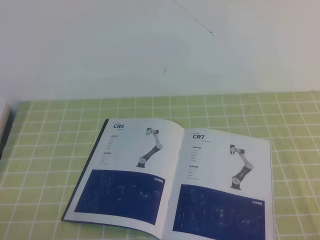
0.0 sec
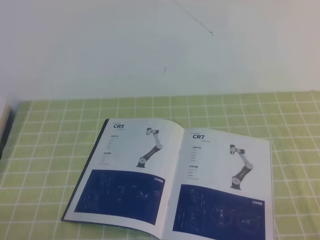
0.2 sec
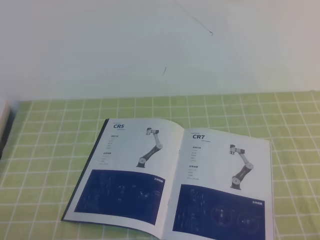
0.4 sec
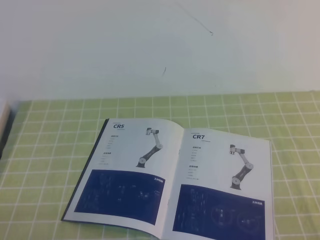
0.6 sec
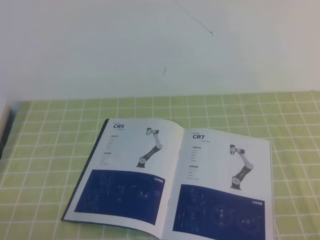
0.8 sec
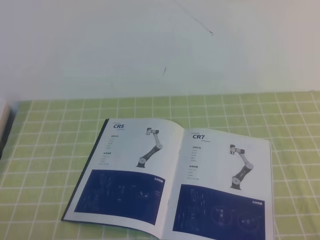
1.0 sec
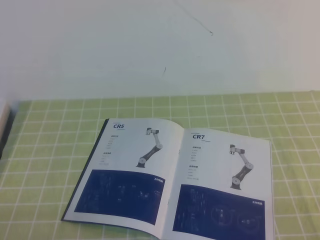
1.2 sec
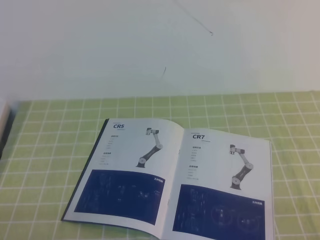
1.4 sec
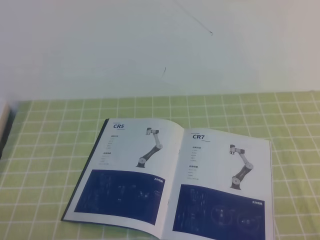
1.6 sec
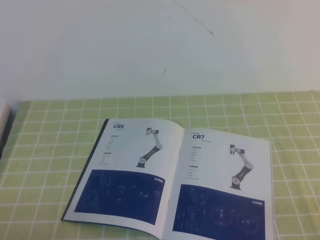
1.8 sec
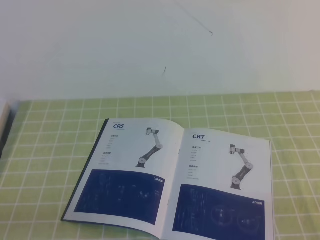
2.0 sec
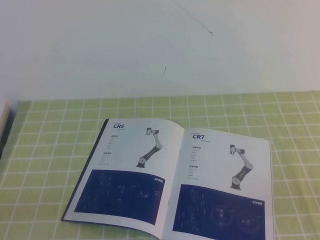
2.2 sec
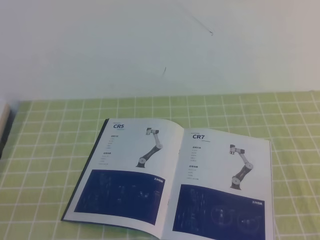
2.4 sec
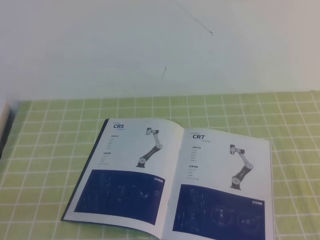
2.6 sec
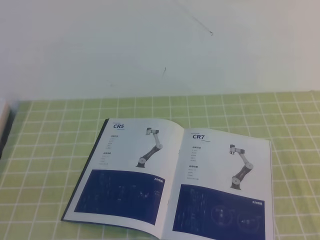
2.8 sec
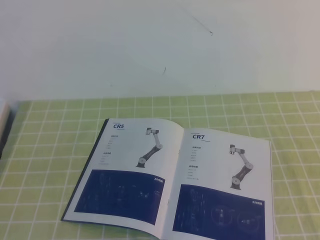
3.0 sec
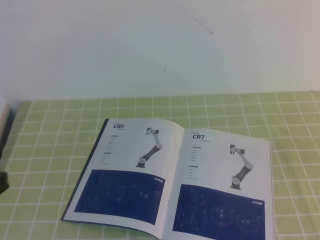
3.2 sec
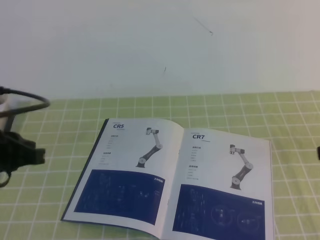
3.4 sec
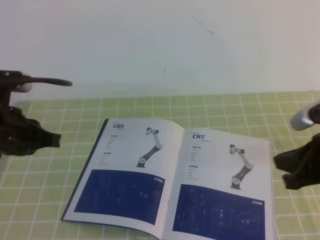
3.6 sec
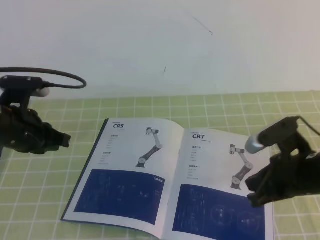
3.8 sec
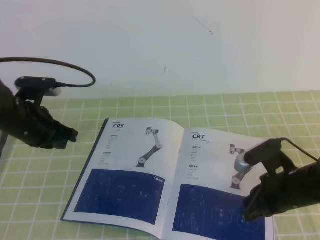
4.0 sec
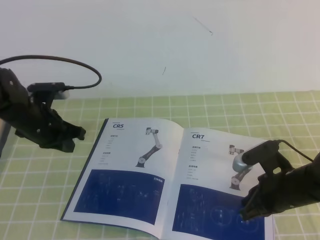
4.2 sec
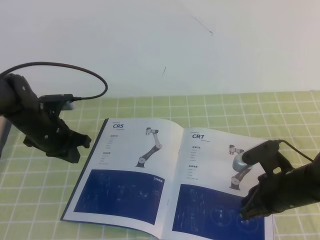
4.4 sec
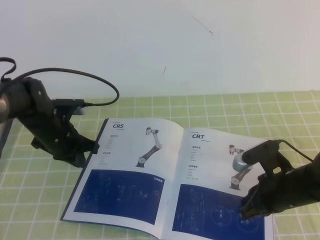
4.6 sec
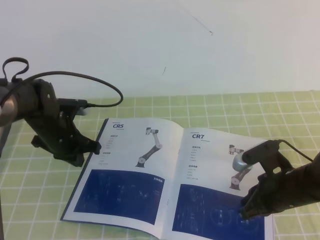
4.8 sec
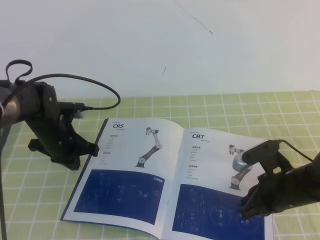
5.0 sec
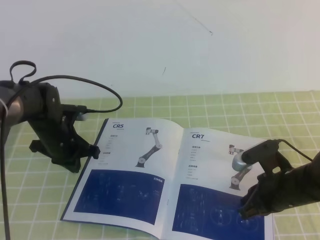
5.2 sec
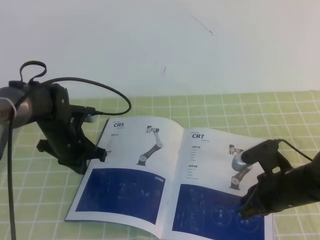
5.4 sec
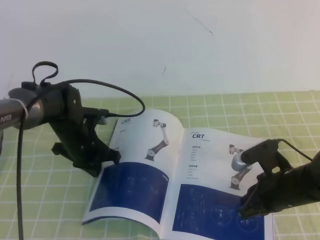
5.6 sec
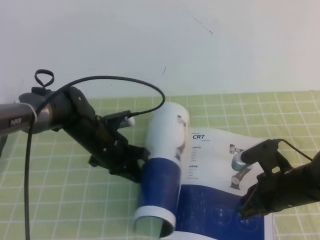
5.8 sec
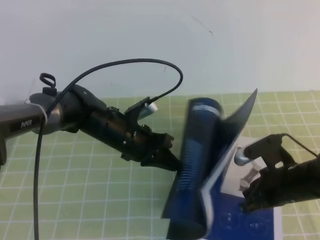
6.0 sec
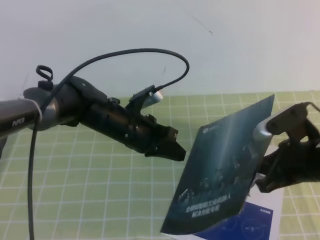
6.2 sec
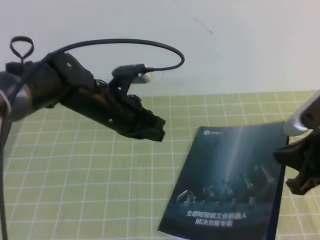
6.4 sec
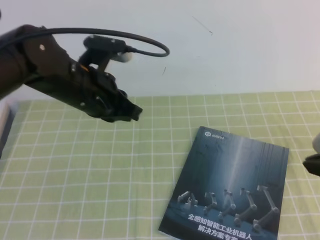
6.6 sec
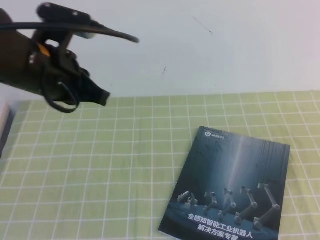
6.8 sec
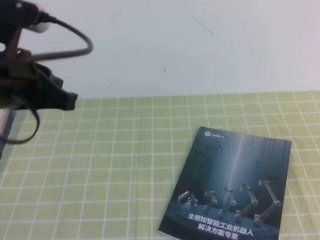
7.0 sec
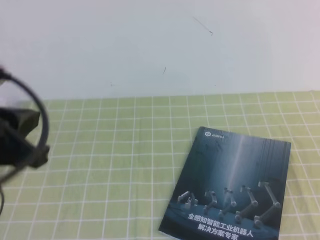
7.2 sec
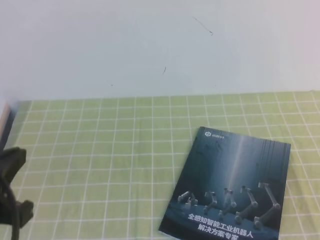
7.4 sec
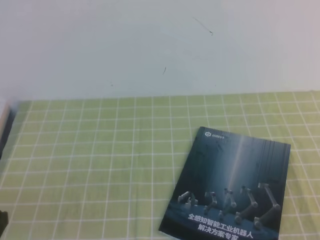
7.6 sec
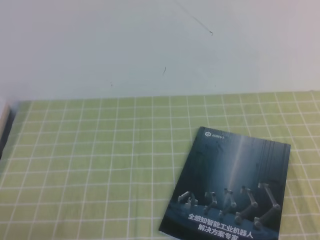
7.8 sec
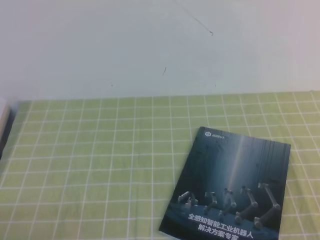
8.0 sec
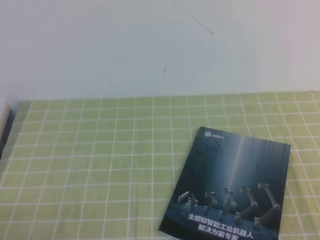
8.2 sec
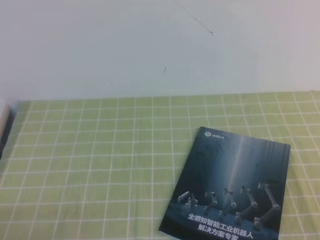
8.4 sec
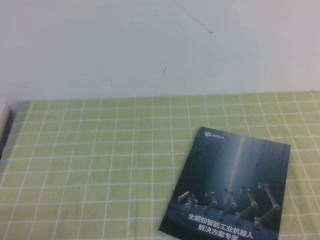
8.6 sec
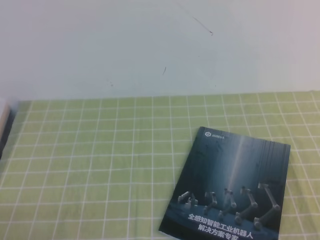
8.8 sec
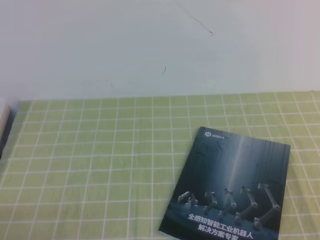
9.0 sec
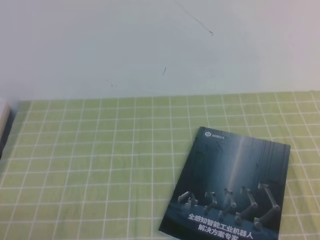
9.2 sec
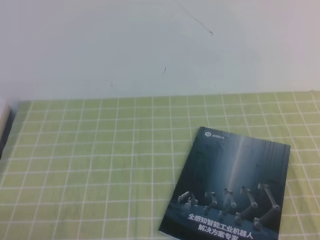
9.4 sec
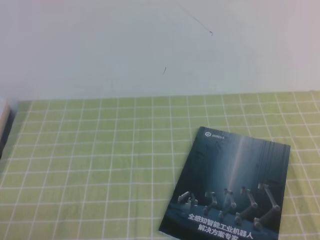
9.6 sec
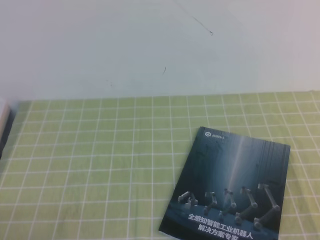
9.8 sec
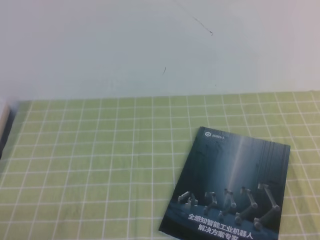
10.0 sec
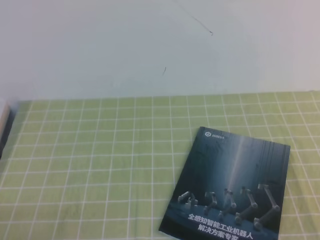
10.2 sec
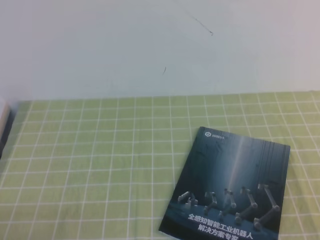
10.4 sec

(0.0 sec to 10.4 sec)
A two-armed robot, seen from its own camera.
Task of the whole recording: on the green tablecloth, hold the book with one hand and close it with the other.
0.0 sec - 1.4 sec: Both grippers stay put.
3.0 sec - 4.4 sec: The right gripper travels forward, downward and to the left by roughly 30 cm, while the left gripper travels forward by about 30 cm.
4.4 sec - 6.0 sec: The left gripper moves to the right, some 15 cm.
6.0 sec - 7.4 sec: The right gripper goes some 25 cm backward, upward and to the right. Meanwhile the left gripper is displaced backward, upward and to the left by some 30 cm.
7.4 sec - 9.0 sec: The left gripper heads downward and backward, covering some 15 cm.

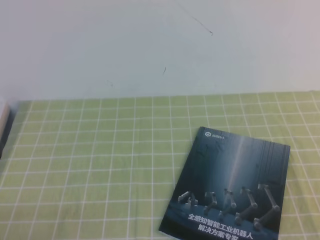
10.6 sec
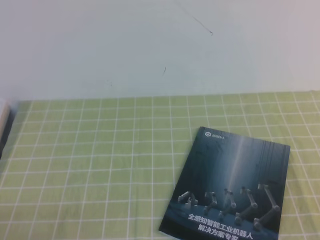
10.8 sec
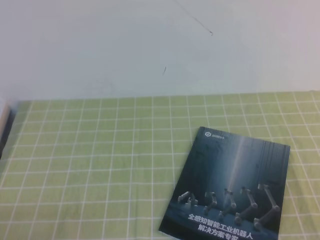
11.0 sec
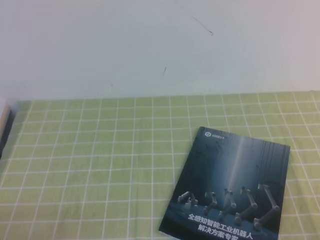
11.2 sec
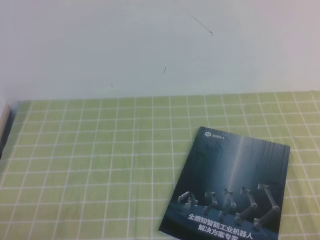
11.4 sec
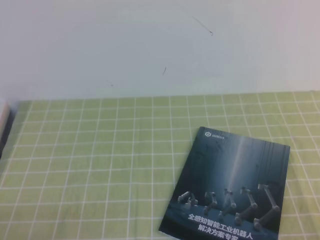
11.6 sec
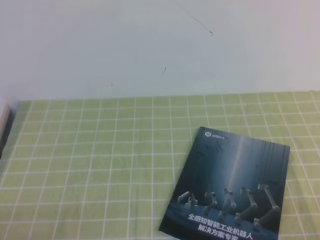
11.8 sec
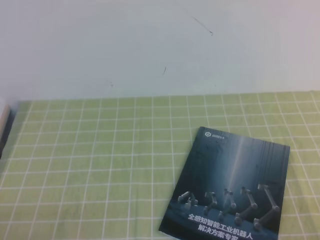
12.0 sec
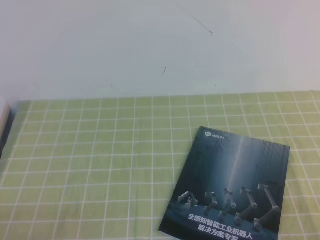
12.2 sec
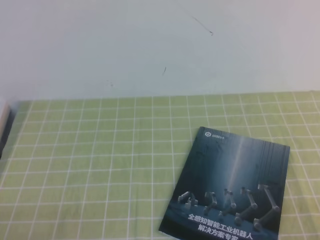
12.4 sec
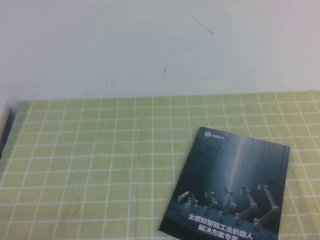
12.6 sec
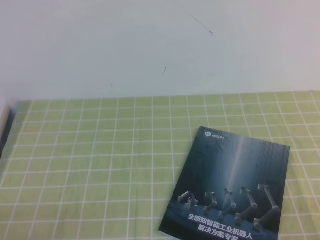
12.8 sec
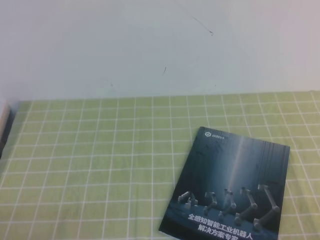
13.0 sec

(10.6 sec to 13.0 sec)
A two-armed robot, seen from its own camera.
Task of the whole recording: on the green tablecloth, hold the book with one hand and close it with the other.
11.8 sec - 13.0 sec: Both grippers stay put.

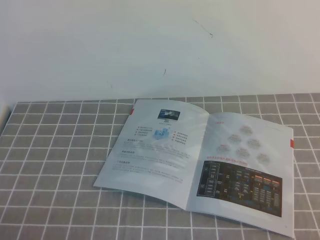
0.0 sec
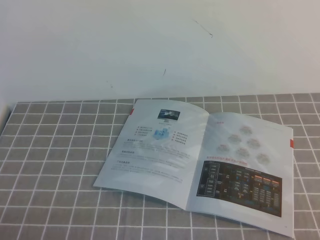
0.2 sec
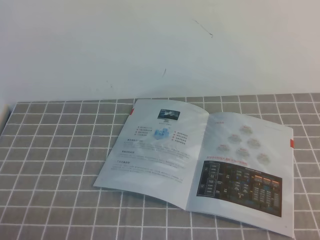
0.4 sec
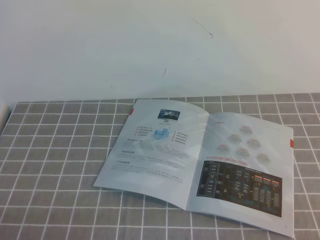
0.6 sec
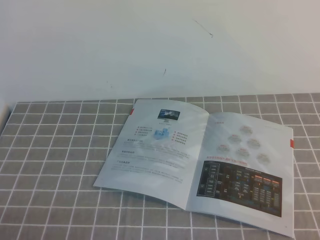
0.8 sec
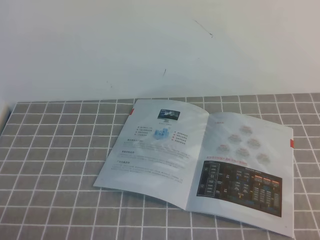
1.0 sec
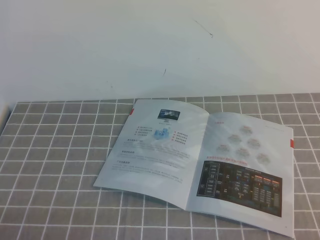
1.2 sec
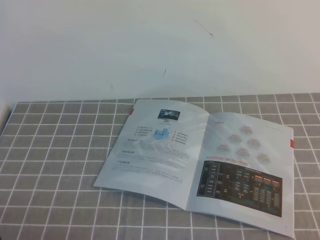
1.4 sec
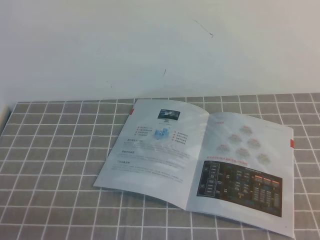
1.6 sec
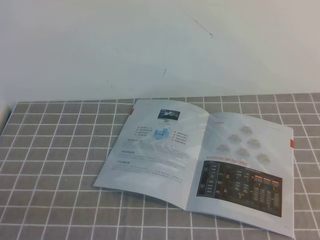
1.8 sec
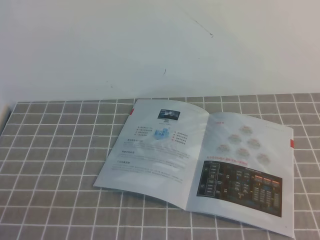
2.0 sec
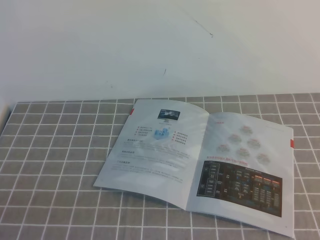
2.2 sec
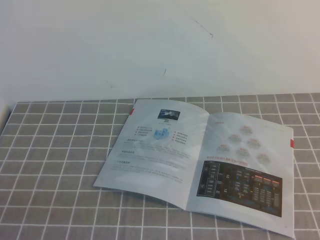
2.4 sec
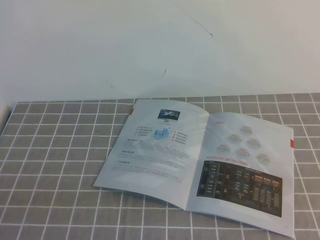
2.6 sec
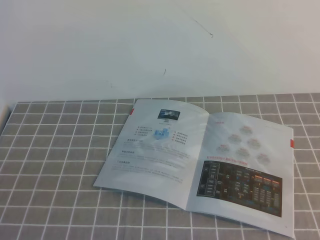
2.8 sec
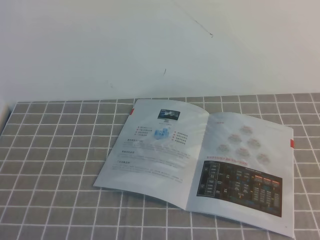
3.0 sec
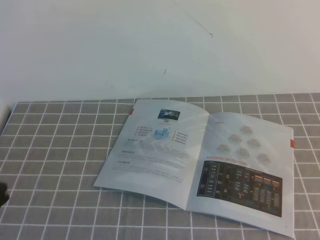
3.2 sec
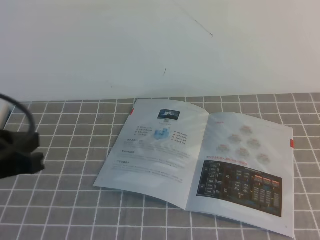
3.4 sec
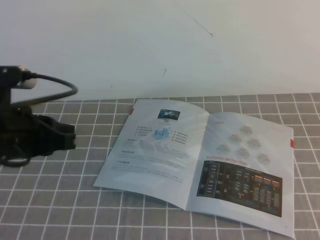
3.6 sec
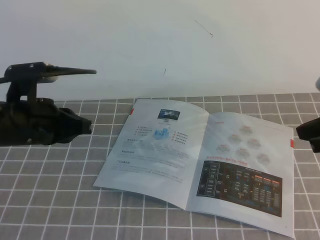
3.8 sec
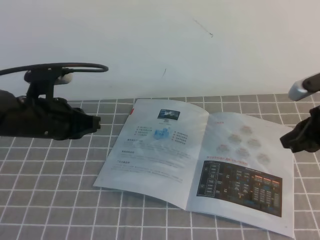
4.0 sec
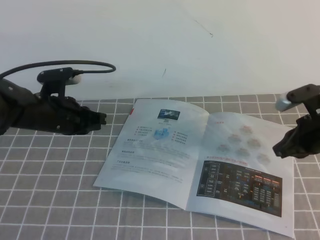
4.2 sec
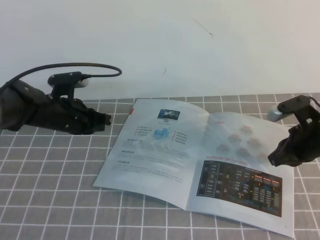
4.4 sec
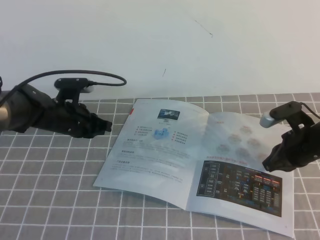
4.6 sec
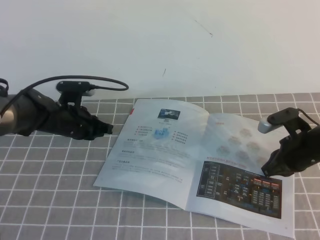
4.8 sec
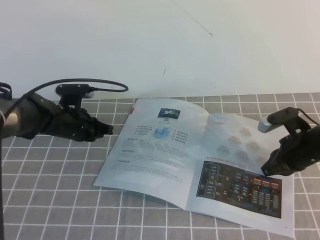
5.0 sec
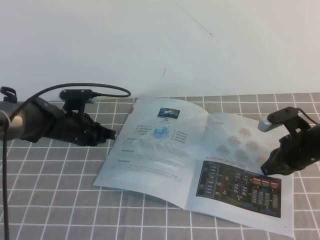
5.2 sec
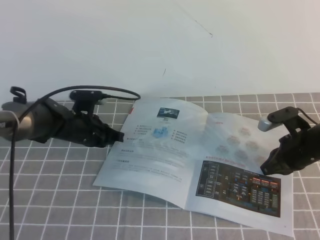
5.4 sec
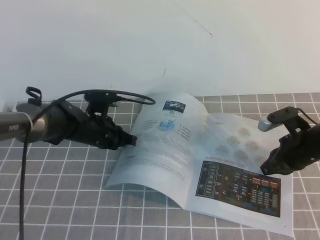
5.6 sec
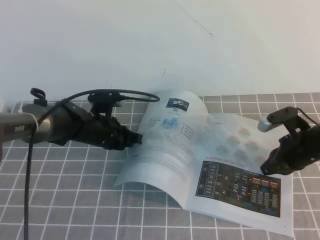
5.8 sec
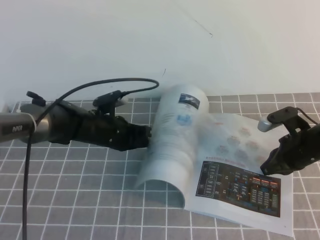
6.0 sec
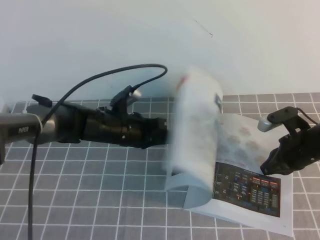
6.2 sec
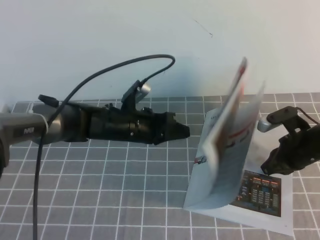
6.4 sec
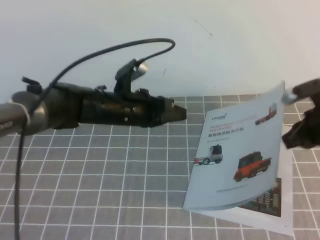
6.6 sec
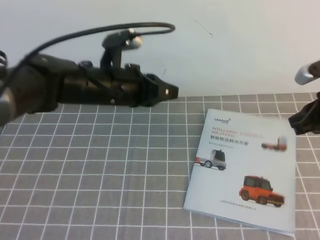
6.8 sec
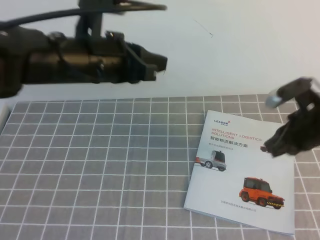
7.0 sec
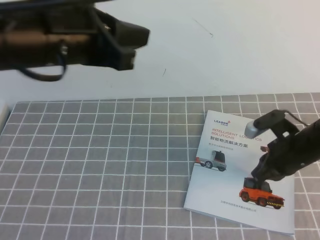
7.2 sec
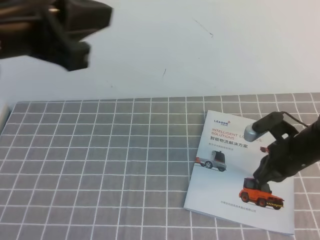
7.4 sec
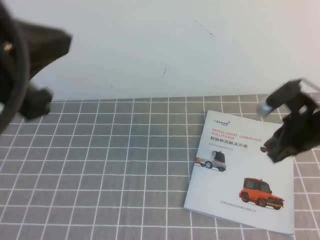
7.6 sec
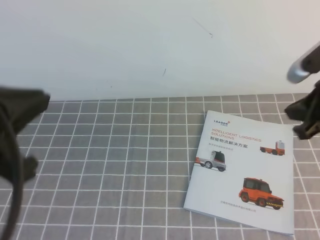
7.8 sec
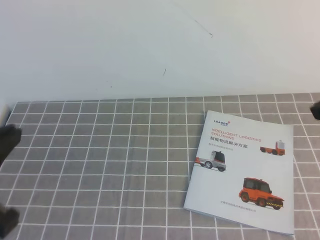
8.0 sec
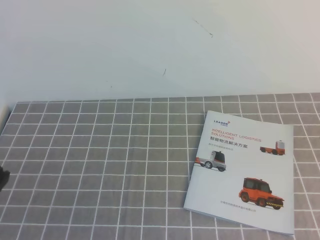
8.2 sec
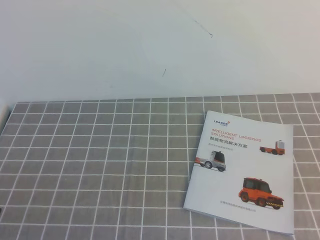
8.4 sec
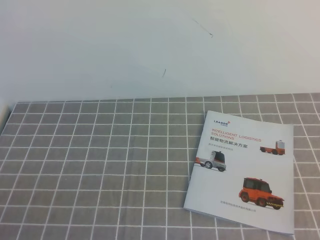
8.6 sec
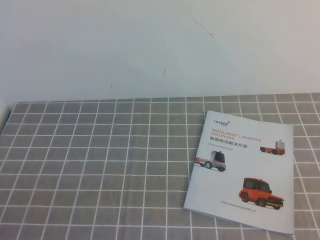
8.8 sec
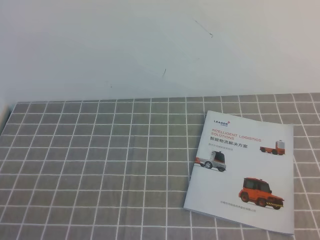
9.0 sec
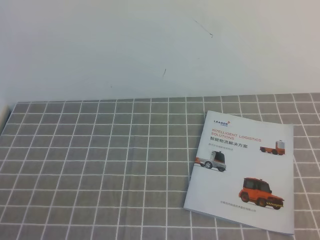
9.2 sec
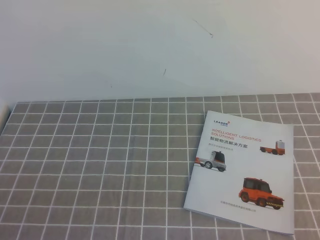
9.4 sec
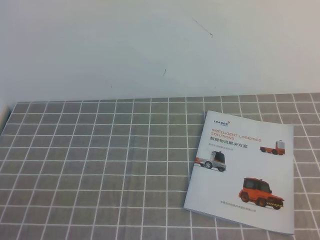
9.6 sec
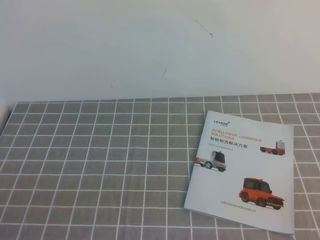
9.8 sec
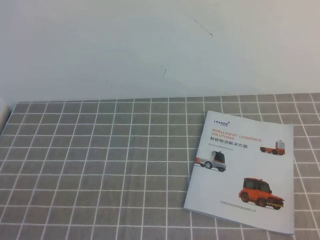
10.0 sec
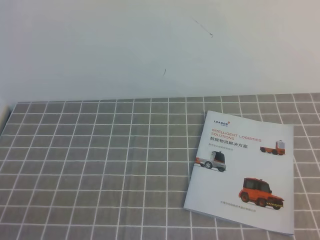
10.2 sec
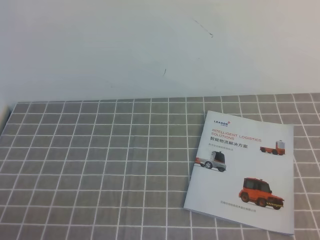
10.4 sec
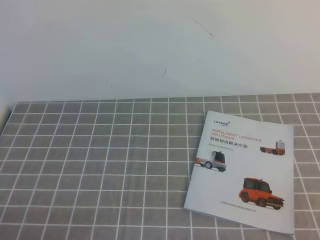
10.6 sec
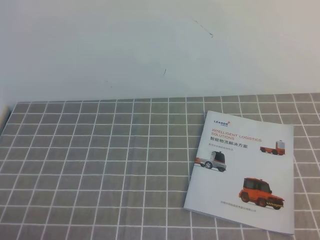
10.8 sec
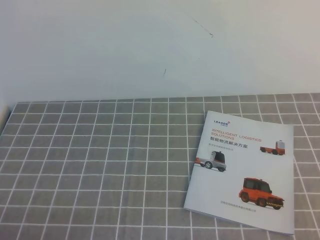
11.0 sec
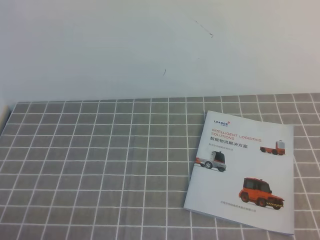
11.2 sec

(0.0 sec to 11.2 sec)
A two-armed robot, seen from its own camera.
Task of the whole recording: on the grey tablecloth, hold the book with one hand and close it with the other.
3.2 sec - 4.8 sec: Both grippers move forward and downward, roughly 35 cm.
4.8 sec - 6.4 sec: The left gripper heads to the right, covering roughly 10 cm.
6.4 sec - 8.0 sec: The right gripper swings up and down, some 20 cm each way, with 2 reversals; the left gripper heads backward, upward and to the left, covering some 35 cm.
8.0 sec - 9.6 sec: The left gripper heads downward and backward, covering some 10 cm. The right gripper moves backward and downward, some 20 cm.
